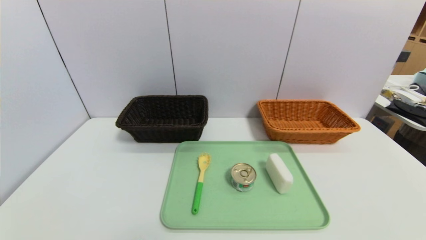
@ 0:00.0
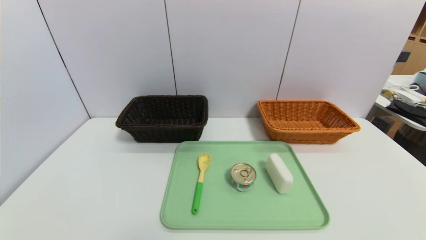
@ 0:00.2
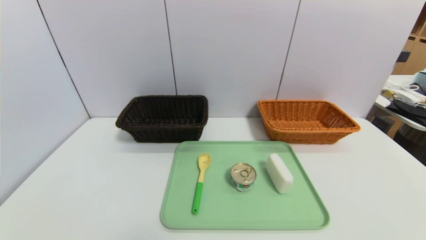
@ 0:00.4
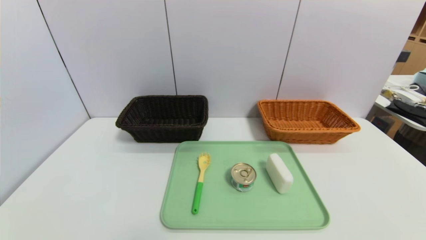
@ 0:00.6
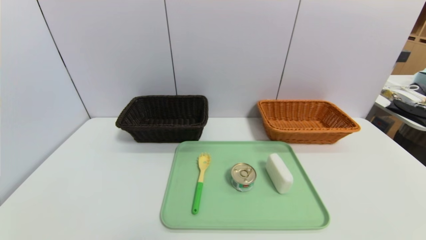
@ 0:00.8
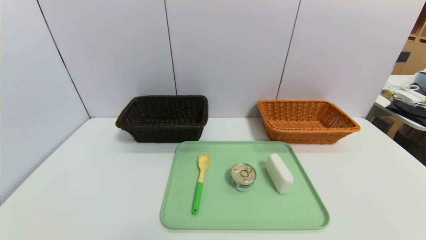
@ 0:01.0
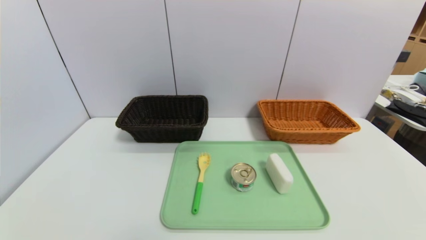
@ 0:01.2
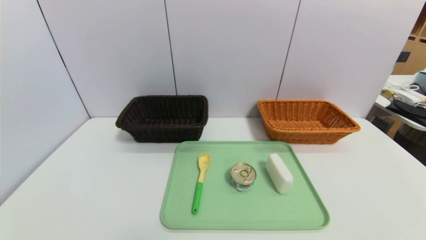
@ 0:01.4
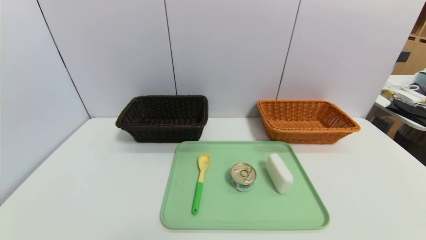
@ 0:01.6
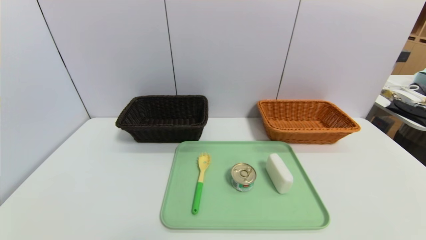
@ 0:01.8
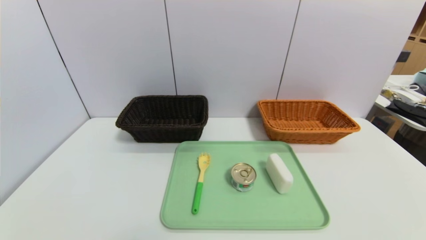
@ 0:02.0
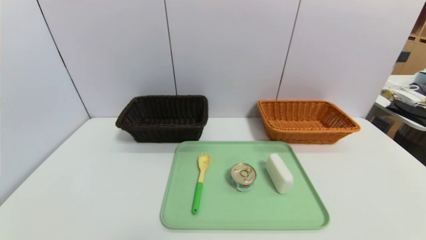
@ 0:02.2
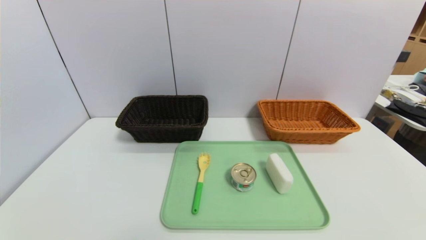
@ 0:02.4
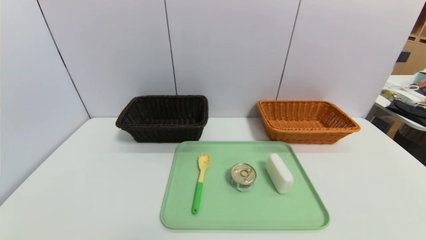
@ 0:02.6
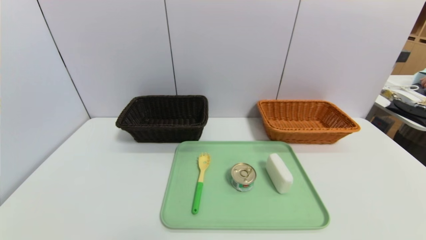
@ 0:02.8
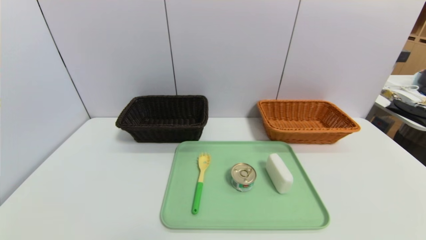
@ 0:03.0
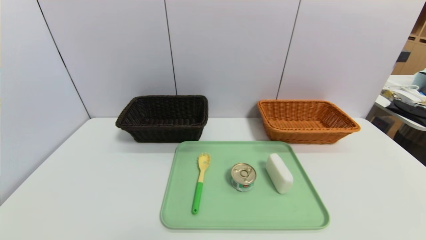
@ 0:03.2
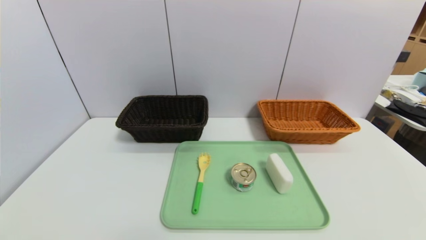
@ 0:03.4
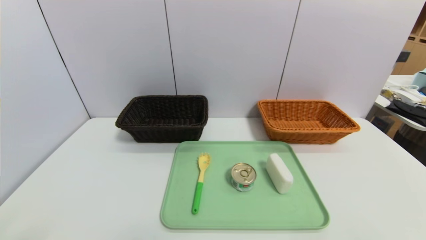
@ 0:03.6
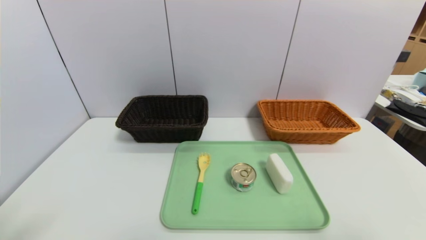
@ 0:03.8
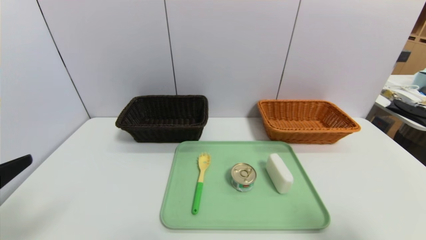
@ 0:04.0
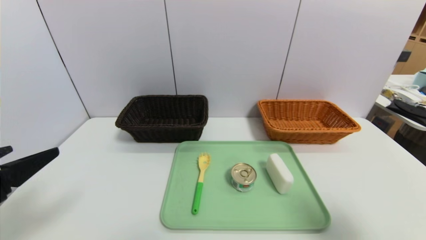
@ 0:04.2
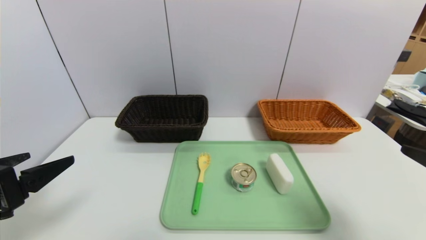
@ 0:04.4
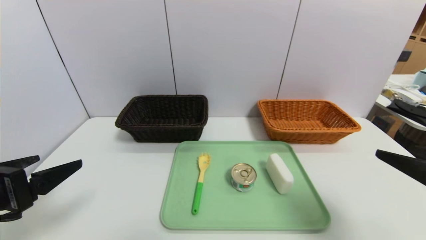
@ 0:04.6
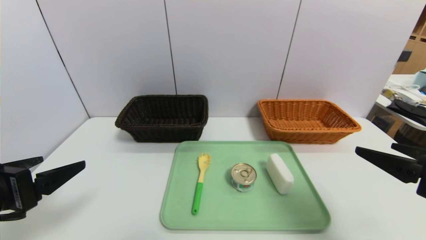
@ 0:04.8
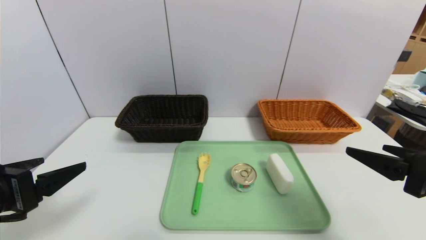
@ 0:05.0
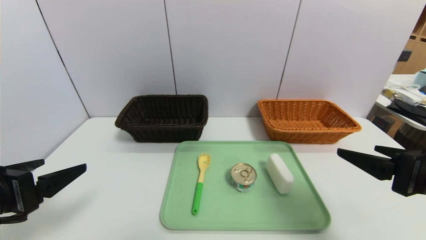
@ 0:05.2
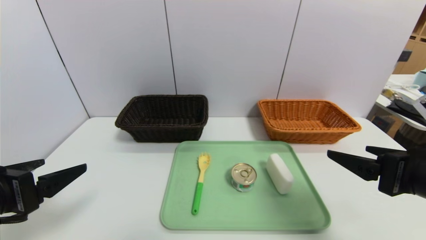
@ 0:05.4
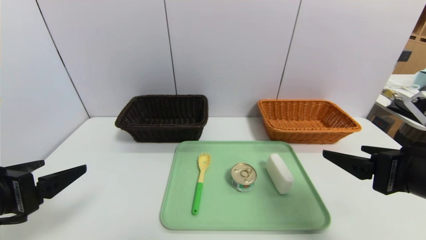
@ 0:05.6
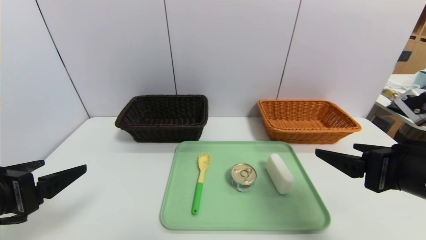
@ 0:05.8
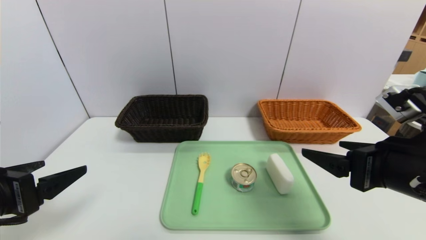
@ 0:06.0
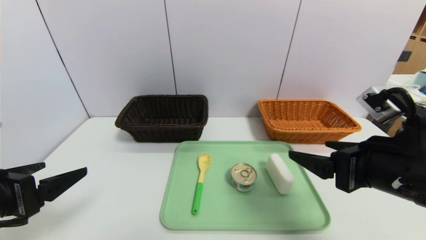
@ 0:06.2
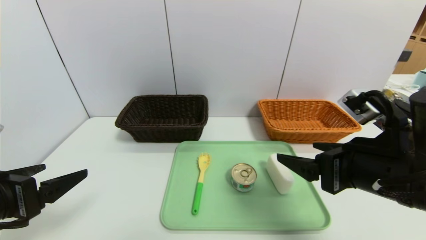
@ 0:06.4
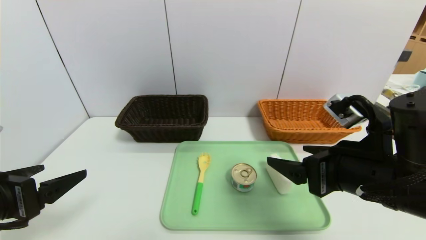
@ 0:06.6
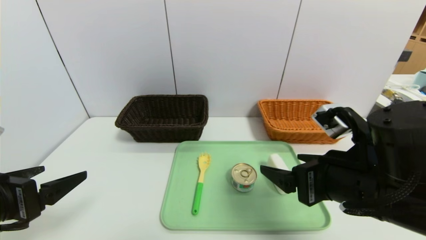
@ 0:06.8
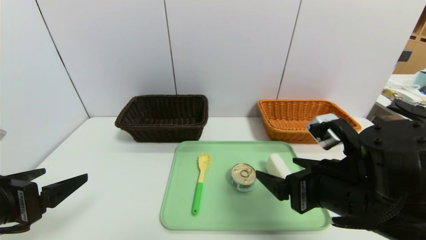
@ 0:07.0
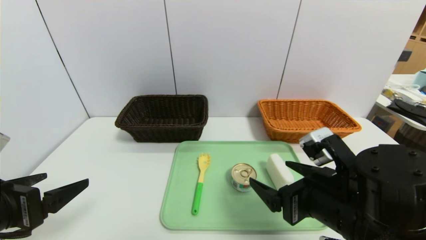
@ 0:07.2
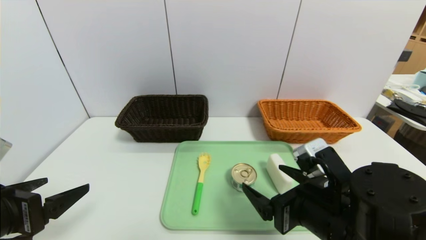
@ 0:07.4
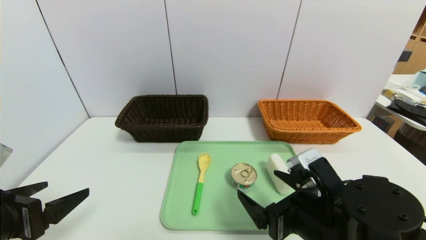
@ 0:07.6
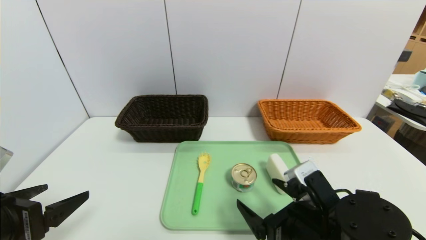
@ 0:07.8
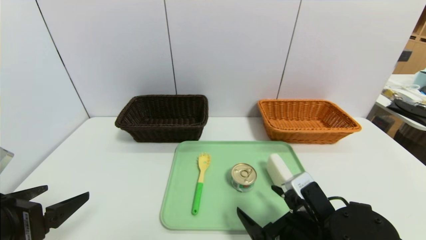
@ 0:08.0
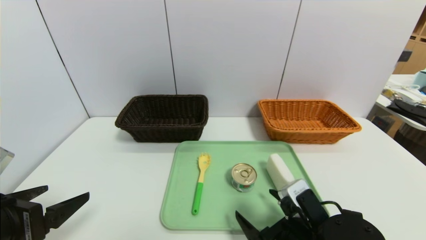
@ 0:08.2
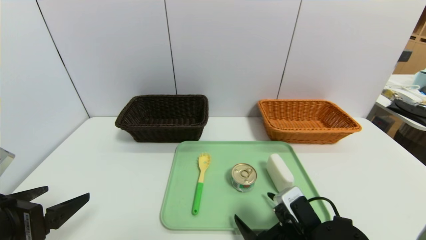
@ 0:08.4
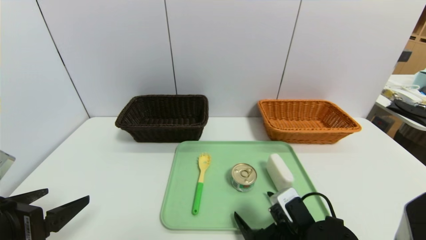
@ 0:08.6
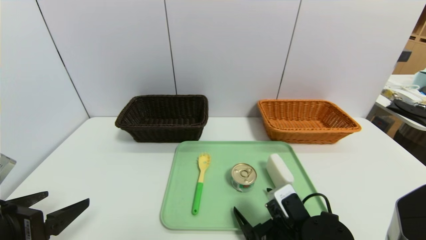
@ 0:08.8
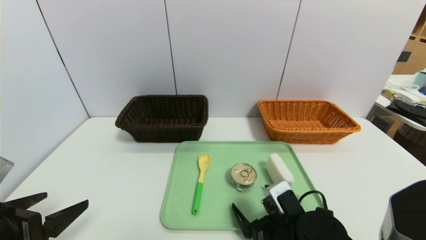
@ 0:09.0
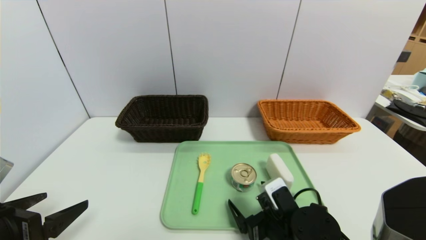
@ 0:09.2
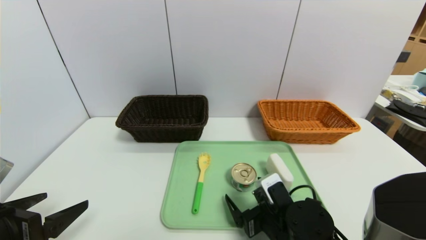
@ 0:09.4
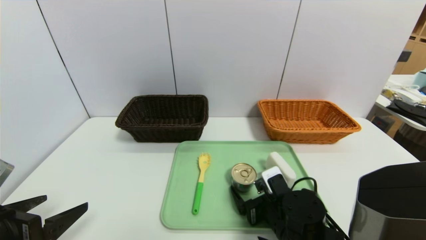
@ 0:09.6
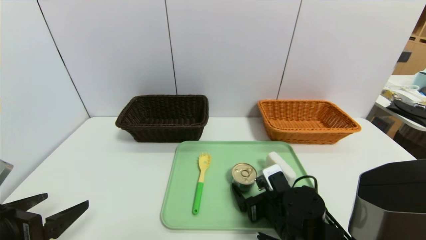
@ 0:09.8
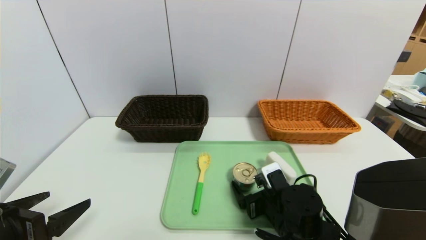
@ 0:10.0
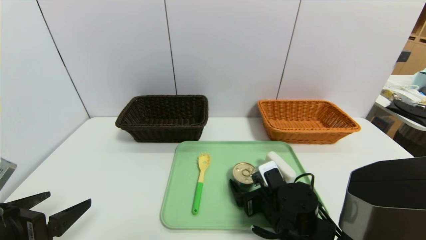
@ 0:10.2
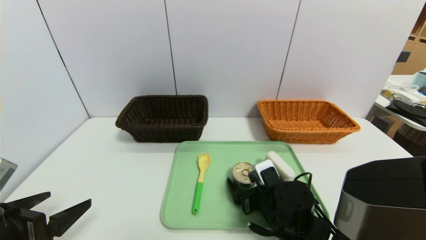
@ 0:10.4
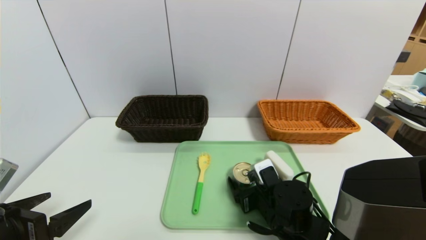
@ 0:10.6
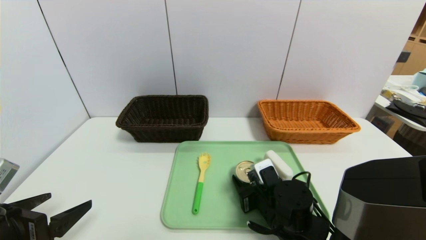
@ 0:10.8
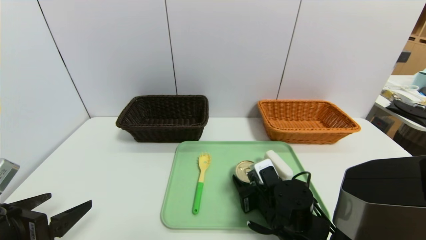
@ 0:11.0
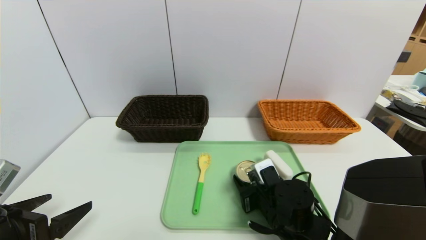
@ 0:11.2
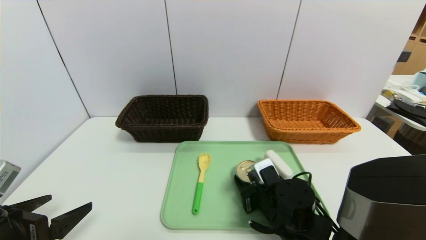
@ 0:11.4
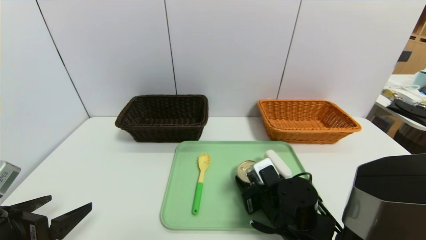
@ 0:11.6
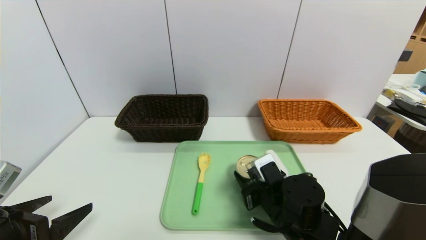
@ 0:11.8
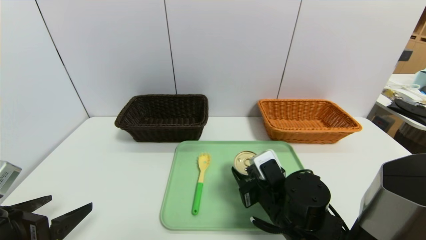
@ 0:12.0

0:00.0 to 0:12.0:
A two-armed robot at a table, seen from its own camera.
Task of the whole recording: place the food in the right basket with the right gripper, and place the non food items in the left basket with the left gripper.
0:00.0 to 0:01.6: Both grippers stay put.
0:03.0 to 0:04.4: Both grippers travel together forward and upward, roughly 15 cm.
0:04.4 to 0:06.0: The right gripper goes roughly 10 cm to the left and forward.
0:06.0 to 0:07.6: The right gripper shifts some 15 cm downward and to the left.
0:07.6 to 0:09.0: The right gripper shifts about 10 cm downward.
0:09.0 to 0:10.4: The right gripper moves forward, about 5 cm.
0:10.4 to 0:12.0: The right gripper shifts approximately 5 cm upward, and closes its fingers.

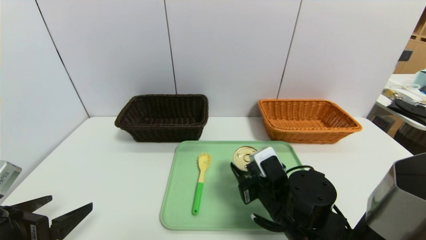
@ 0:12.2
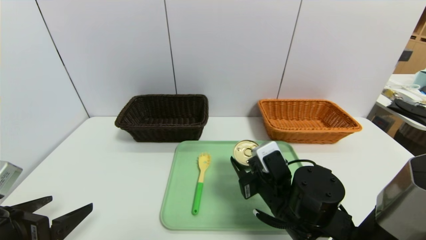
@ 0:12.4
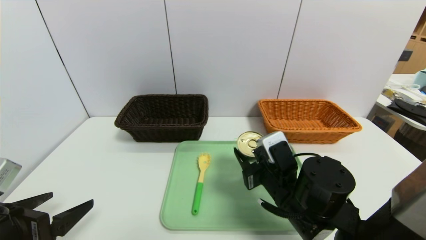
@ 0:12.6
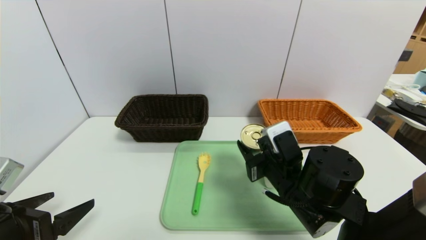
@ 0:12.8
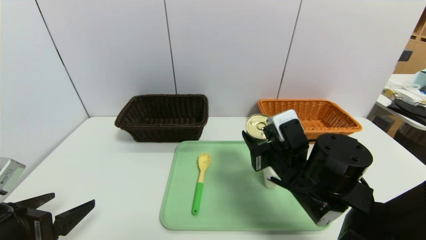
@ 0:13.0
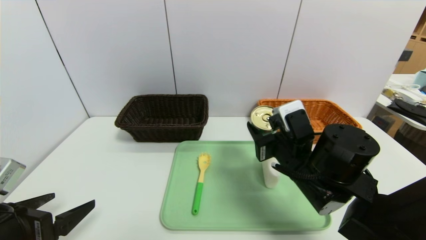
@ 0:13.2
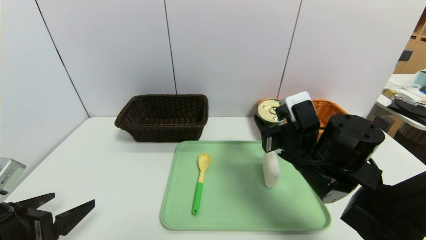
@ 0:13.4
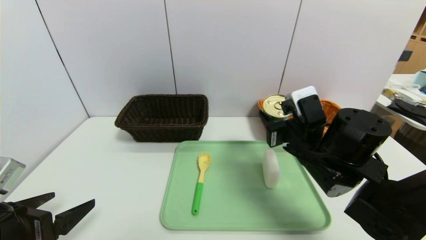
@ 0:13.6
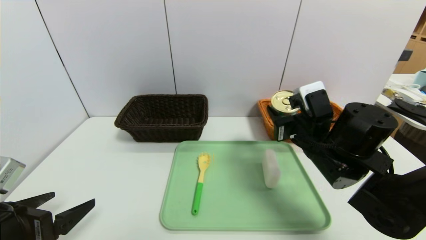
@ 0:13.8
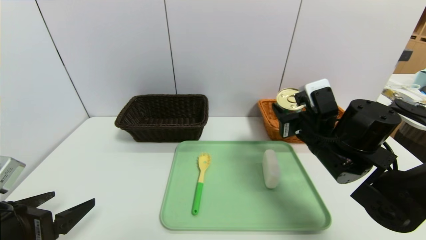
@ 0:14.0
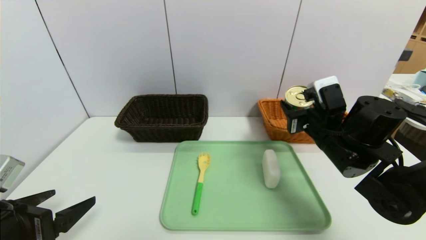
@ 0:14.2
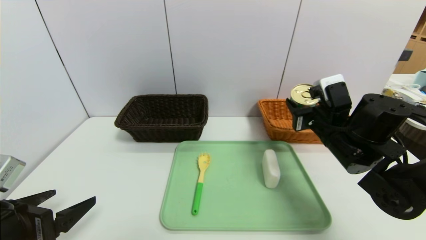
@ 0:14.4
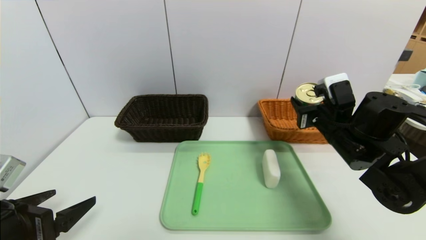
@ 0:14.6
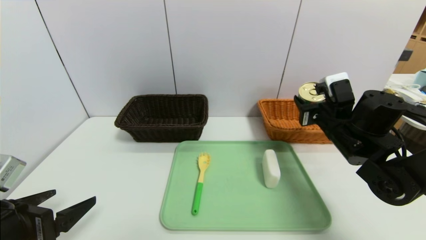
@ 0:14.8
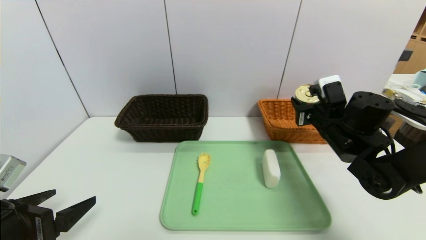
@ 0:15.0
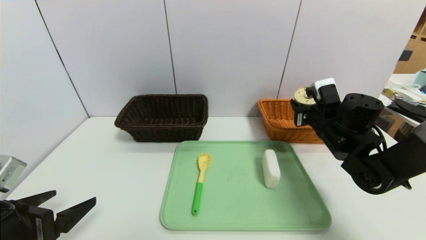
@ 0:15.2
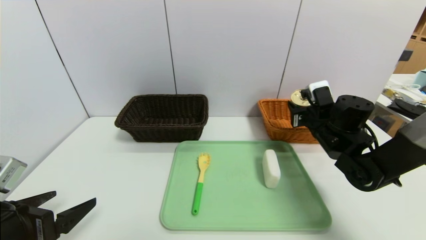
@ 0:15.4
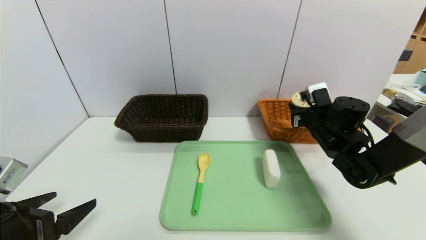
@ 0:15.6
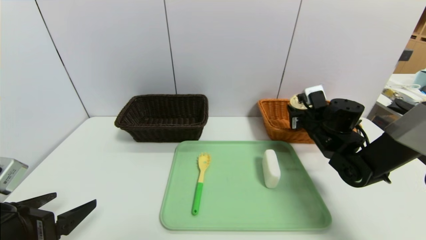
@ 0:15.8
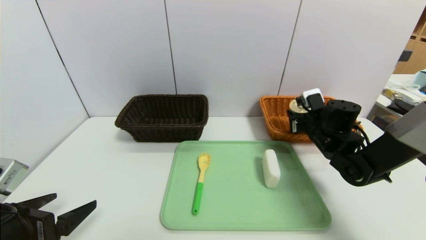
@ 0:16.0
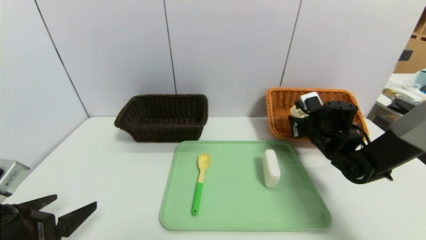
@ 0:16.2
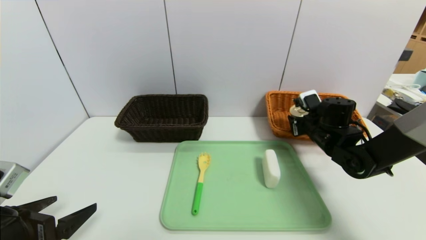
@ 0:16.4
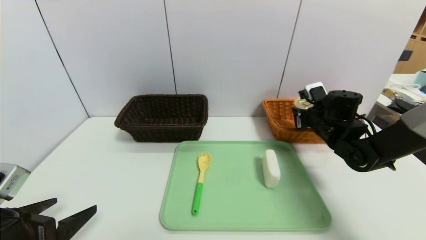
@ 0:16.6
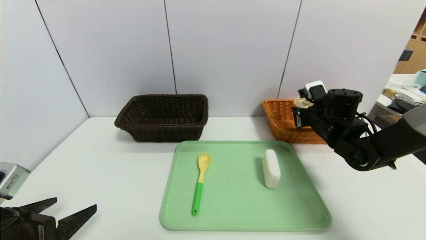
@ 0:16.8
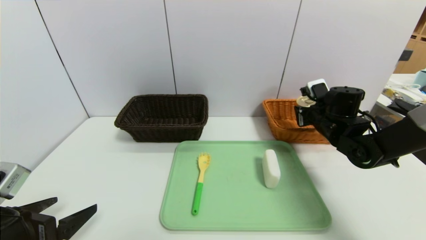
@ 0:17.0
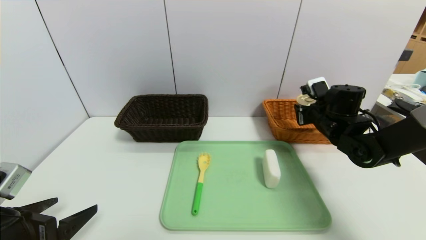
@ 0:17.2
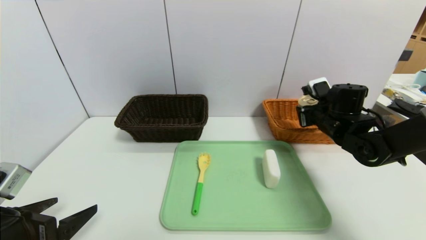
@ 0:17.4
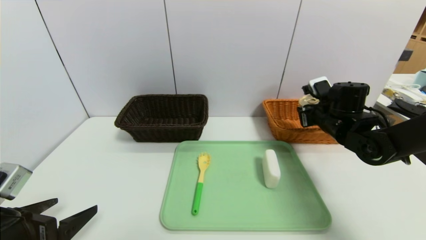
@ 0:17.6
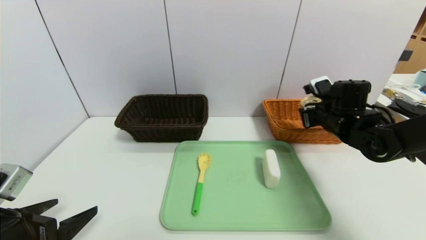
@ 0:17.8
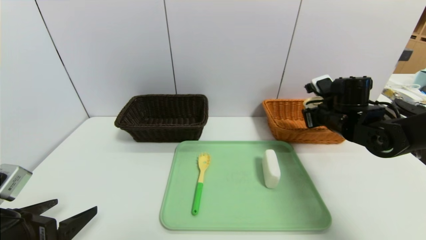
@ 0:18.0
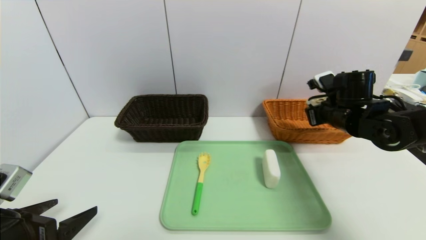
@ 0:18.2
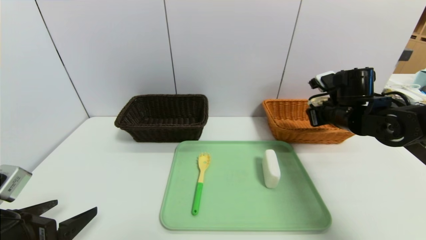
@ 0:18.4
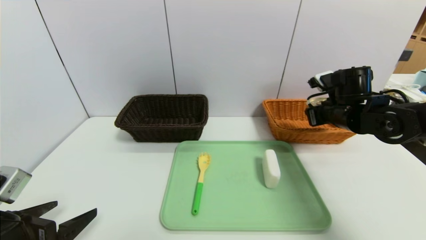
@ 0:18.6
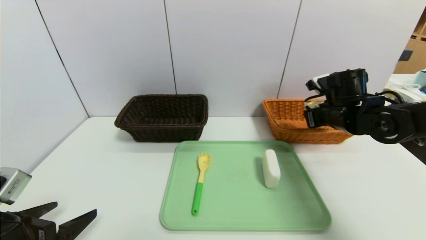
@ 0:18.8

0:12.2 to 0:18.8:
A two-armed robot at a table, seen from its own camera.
Task of the whole recording: place the food in the right basket with the right gripper, and place the non food items in the left basket with the left gripper.
0:12.2 to 0:13.8: The right gripper is displaced upward, to the right and forward by approximately 10 cm.
0:13.8 to 0:15.4: The right gripper is displaced forward and to the right by some 10 cm.
0:15.4 to 0:17.2: The grippers move only a little.
0:17.2 to 0:18.8: The grippers move only a little.
